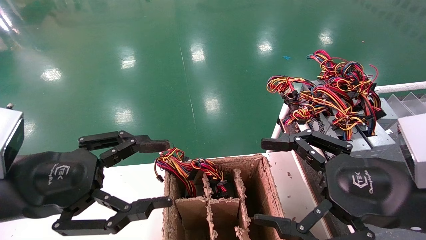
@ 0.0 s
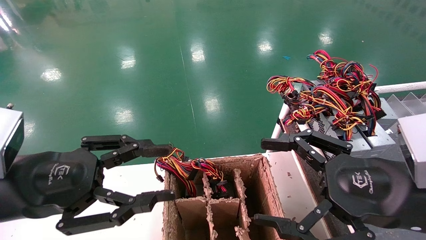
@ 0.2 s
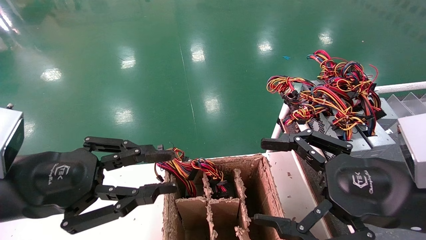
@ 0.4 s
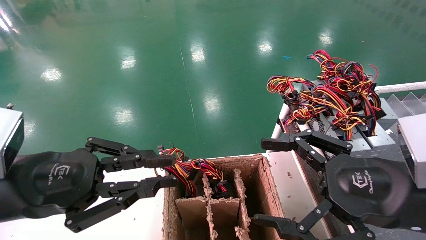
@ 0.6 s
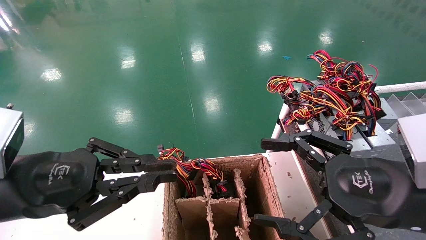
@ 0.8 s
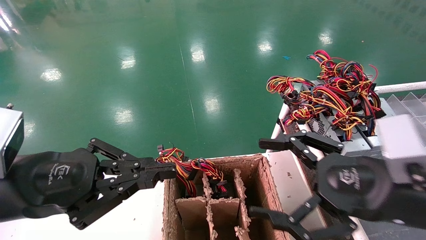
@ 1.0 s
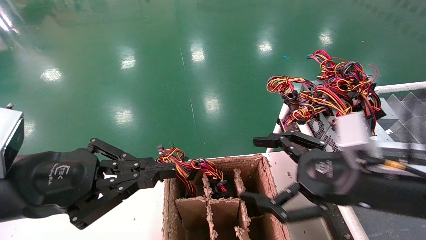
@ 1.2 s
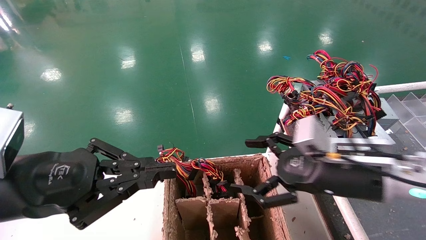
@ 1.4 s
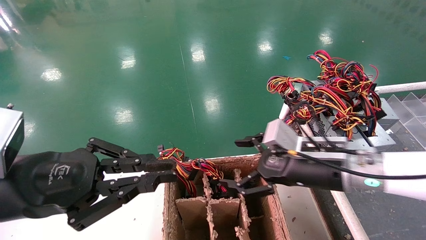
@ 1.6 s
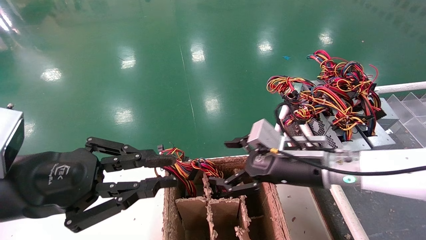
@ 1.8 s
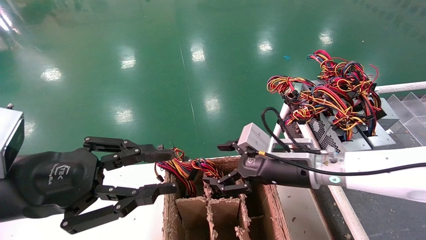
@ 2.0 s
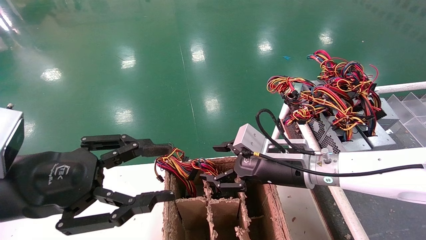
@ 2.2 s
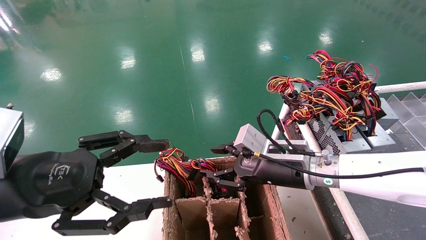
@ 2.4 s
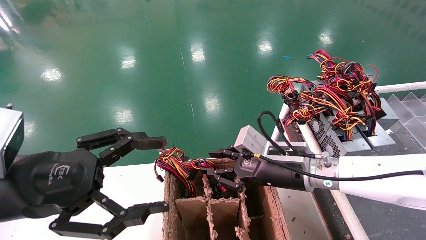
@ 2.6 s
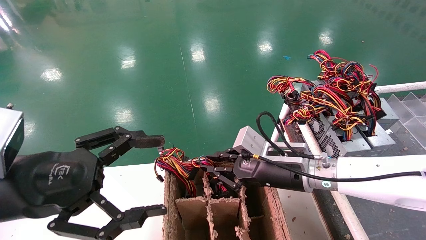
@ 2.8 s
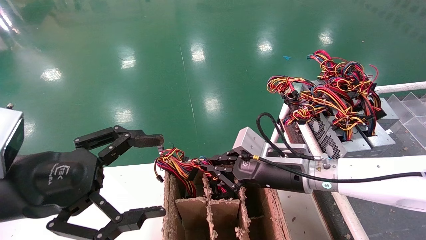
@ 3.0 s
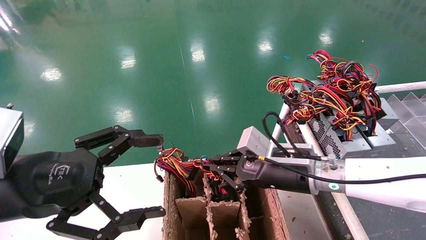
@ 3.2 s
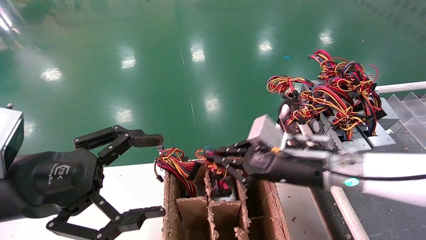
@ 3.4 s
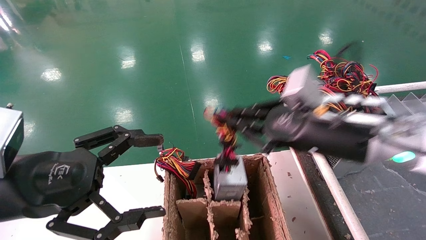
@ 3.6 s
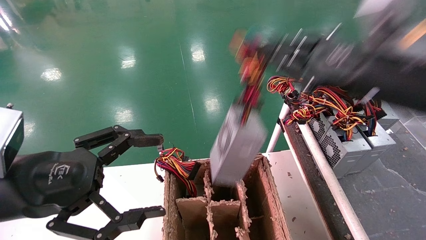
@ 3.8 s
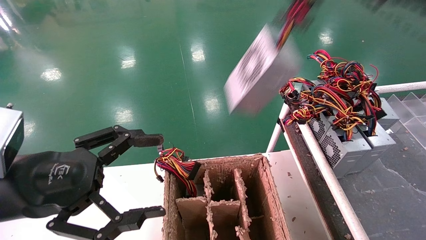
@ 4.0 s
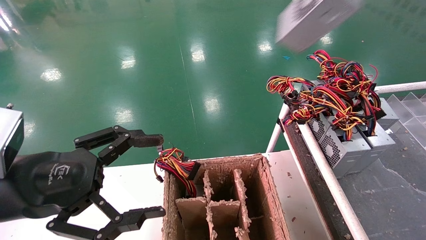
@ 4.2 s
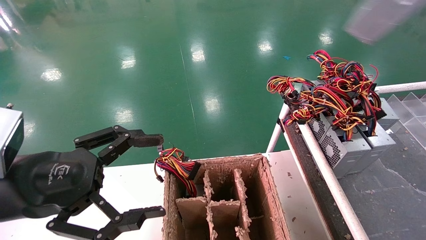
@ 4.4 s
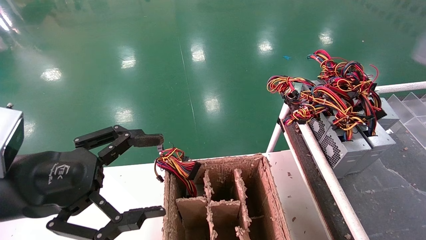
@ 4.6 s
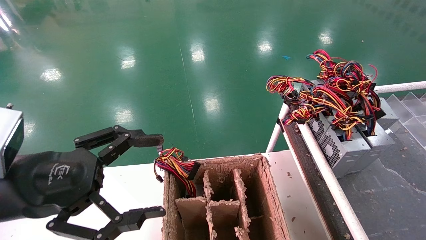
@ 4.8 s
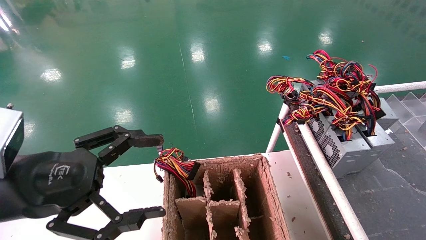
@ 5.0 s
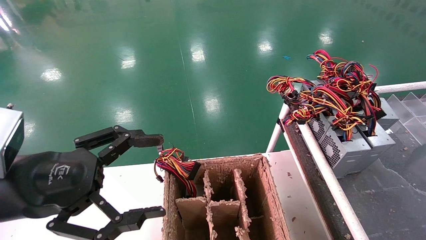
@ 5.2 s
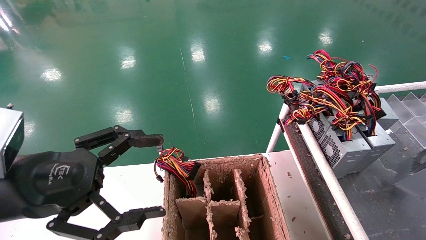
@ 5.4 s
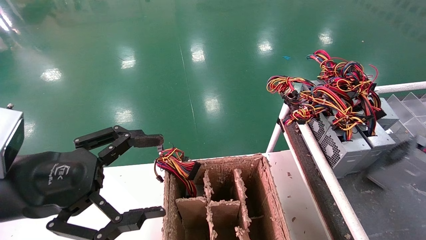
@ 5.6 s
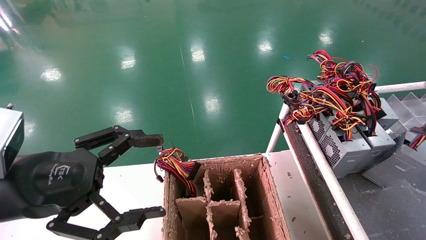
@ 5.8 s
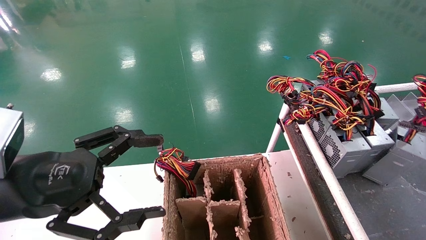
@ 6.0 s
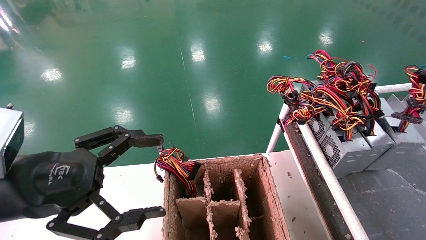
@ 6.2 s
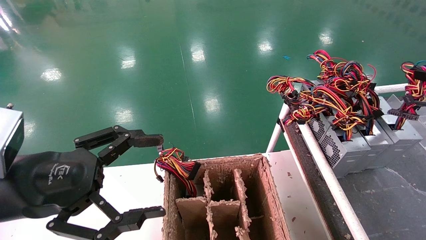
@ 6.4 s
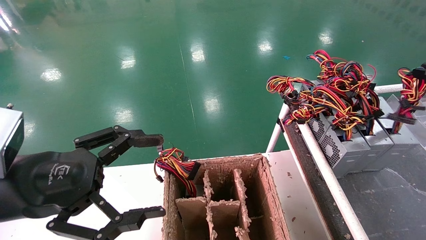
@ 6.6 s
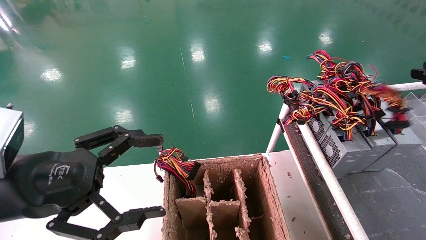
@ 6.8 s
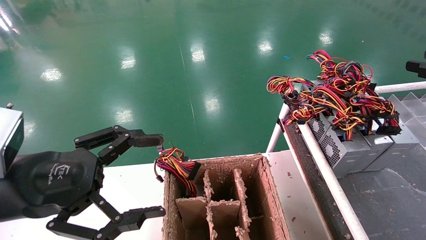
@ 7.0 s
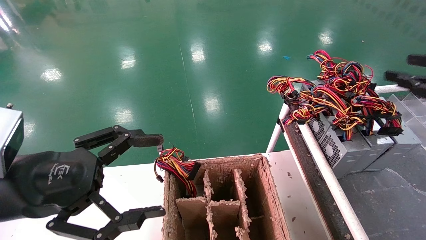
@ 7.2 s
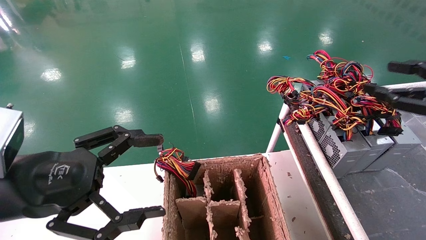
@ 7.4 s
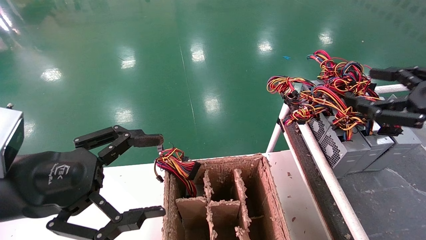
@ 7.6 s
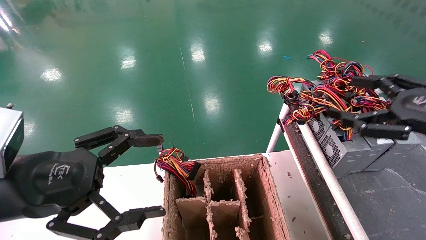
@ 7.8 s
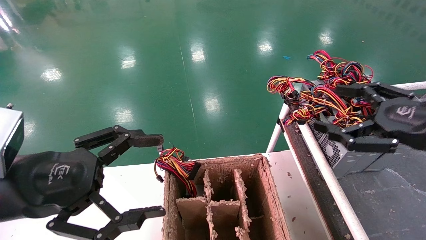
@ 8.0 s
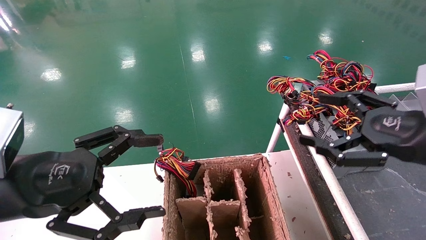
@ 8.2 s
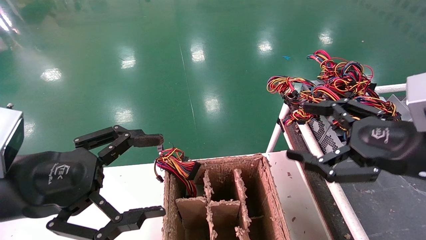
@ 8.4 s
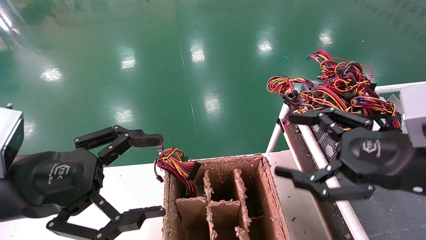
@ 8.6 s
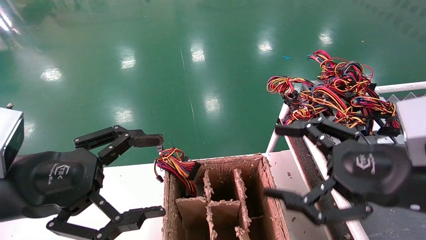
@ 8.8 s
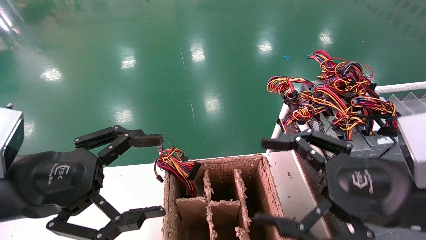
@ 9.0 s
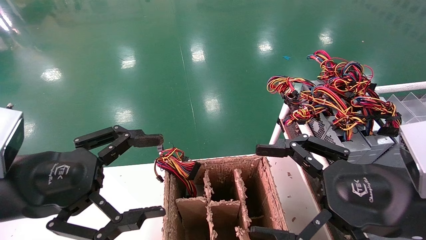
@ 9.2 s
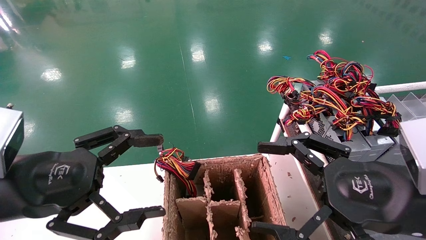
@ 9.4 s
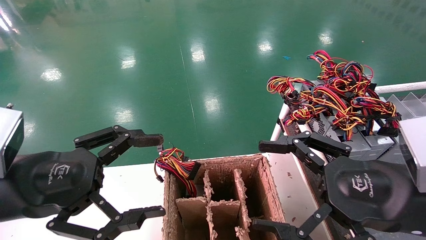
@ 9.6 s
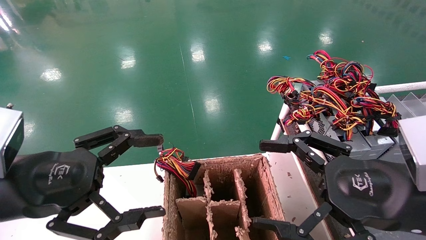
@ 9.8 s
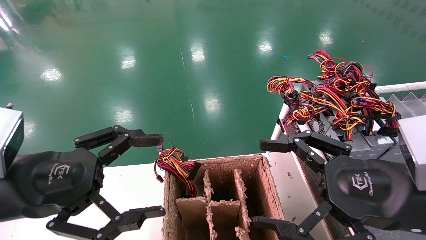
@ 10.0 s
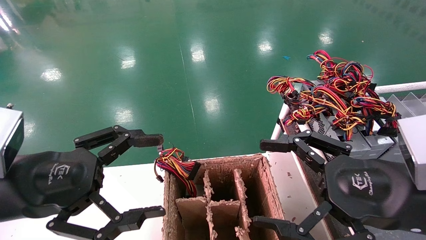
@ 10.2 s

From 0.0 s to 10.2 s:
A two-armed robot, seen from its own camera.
Step, from 1.6 s to 5.2 s: Grab and lift the power supply from the large box.
Step, from 5.4 s to 8.4 s: Place the power supply on the operating table.
From 0.0 s to 1.4 s: The right gripper is displaced forward by some 10 cm, while the left gripper closes.
From 1.4 s to 3.0 s: The right gripper shifts roughly 10 cm to the left and forward, and closes its fingers. The left gripper opens up.
From 3.0 s to 4.4 s: The right gripper travels upward, to the right and backward by approximately 40 cm.
From 4.4 s to 5.8 s: The right gripper moves downward and to the right, approximately 20 cm.
From 5.8 s to 7.2 s: The right gripper shifts approximately 5 cm to the left.
From 7.2 s to 8.8 s: The right gripper travels to the left and downward by roughly 20 cm, and opens.
From 8.8 s to 10.2 s: The grippers stay close to where they were, moving slightly.

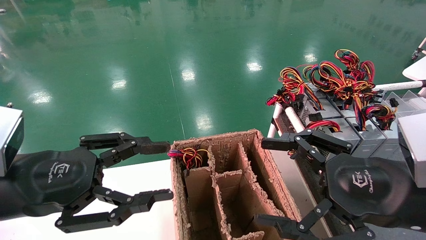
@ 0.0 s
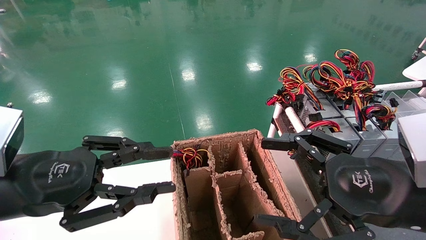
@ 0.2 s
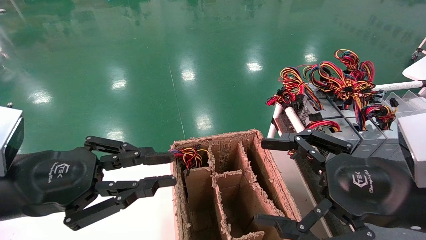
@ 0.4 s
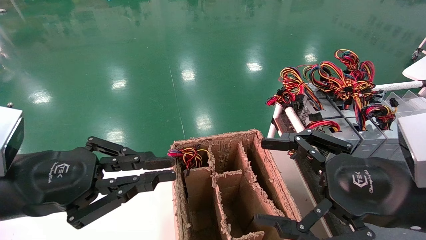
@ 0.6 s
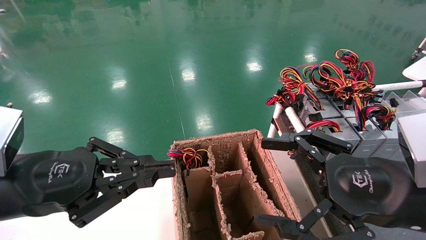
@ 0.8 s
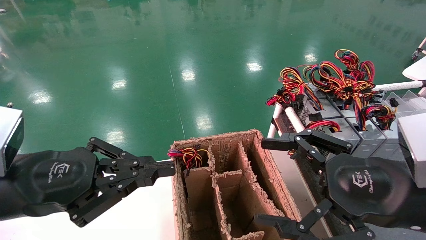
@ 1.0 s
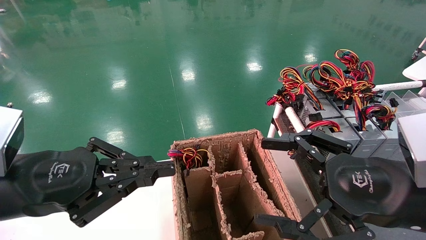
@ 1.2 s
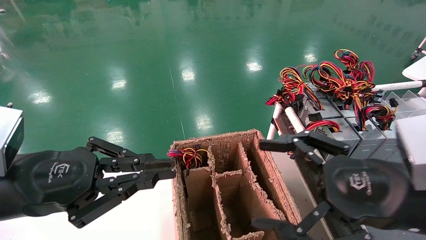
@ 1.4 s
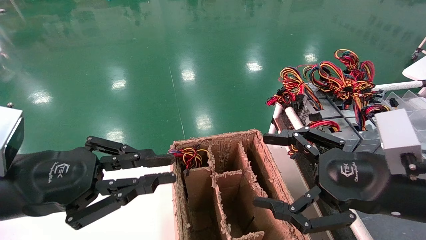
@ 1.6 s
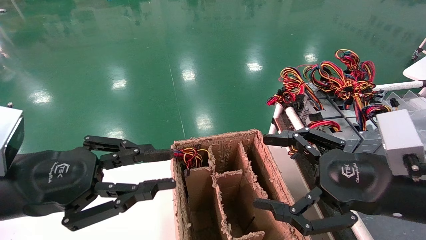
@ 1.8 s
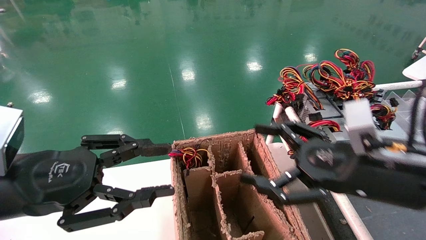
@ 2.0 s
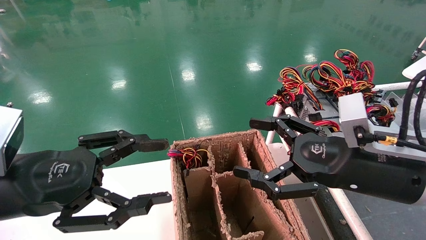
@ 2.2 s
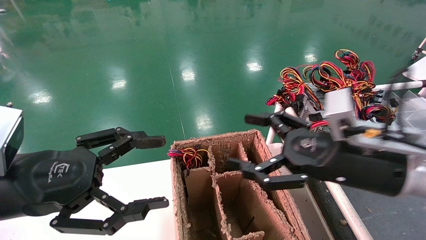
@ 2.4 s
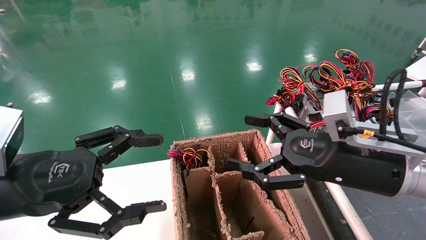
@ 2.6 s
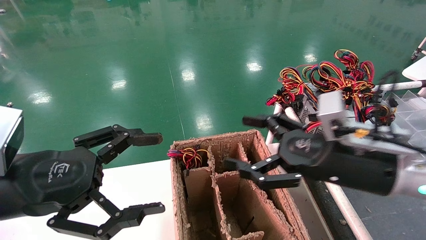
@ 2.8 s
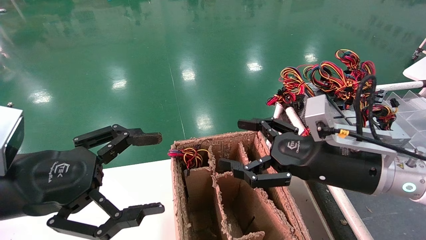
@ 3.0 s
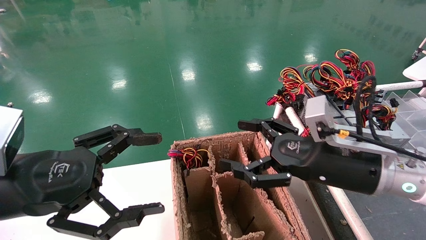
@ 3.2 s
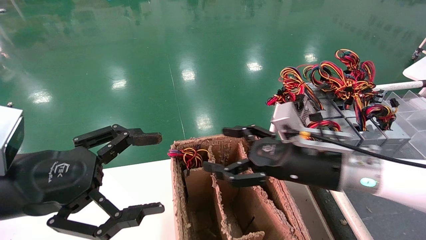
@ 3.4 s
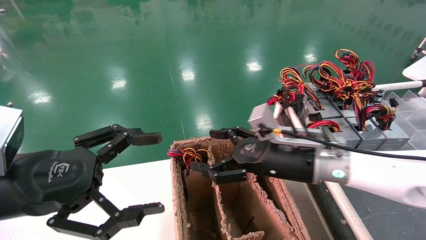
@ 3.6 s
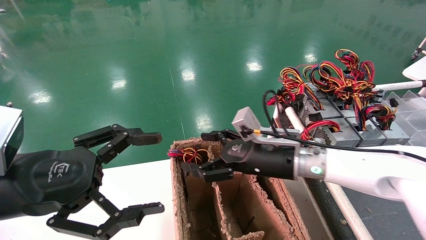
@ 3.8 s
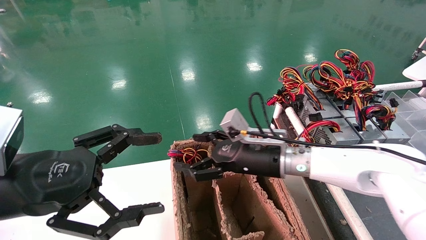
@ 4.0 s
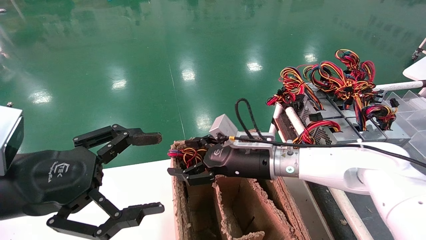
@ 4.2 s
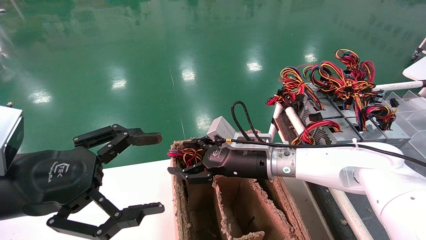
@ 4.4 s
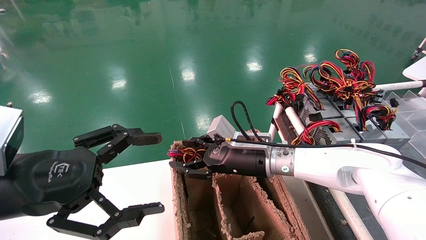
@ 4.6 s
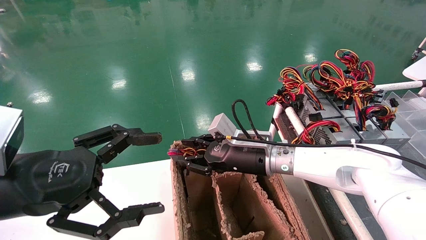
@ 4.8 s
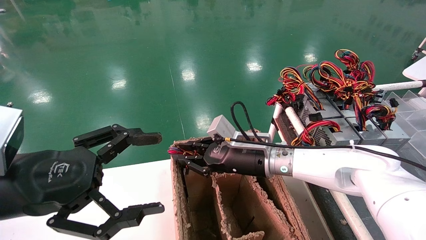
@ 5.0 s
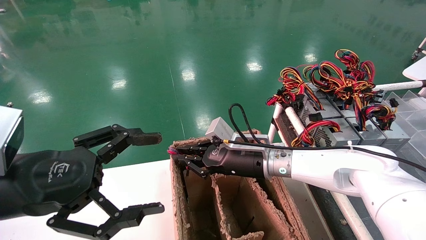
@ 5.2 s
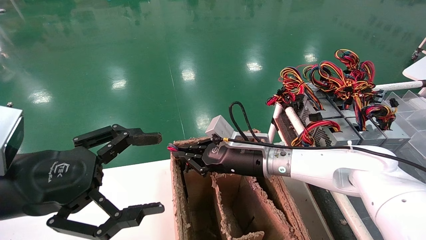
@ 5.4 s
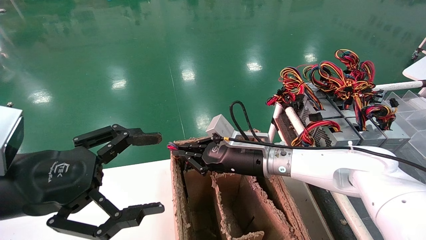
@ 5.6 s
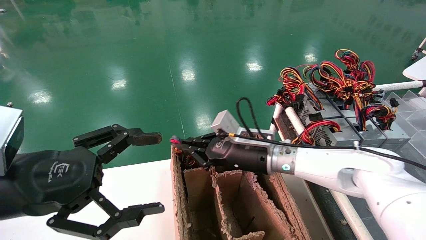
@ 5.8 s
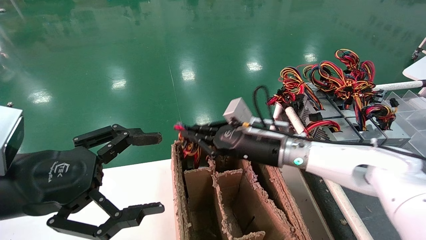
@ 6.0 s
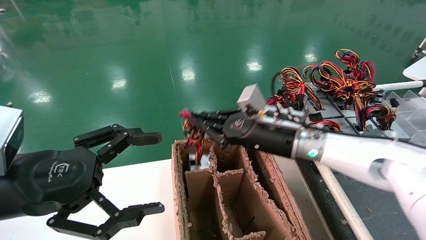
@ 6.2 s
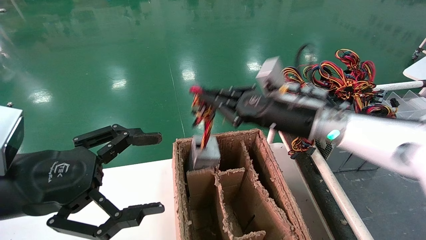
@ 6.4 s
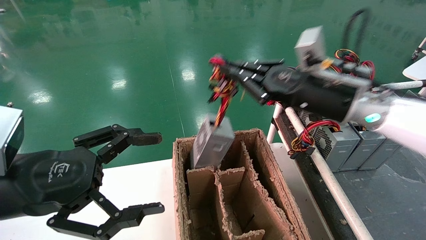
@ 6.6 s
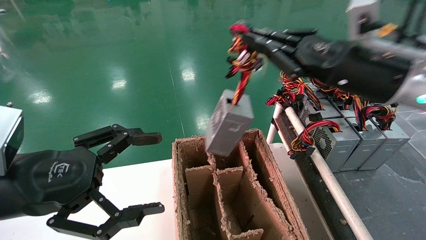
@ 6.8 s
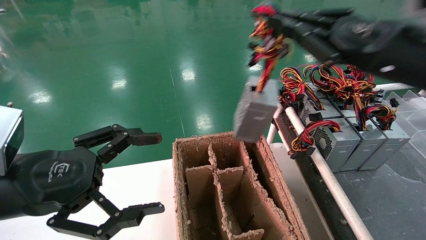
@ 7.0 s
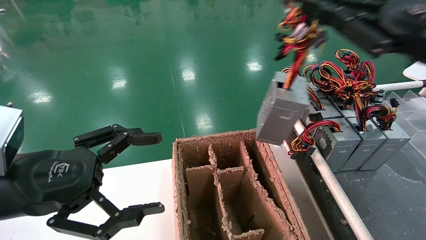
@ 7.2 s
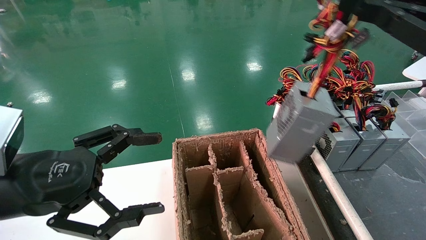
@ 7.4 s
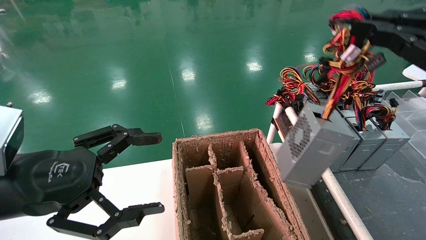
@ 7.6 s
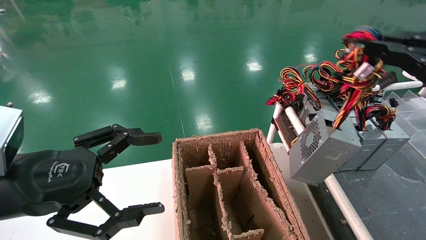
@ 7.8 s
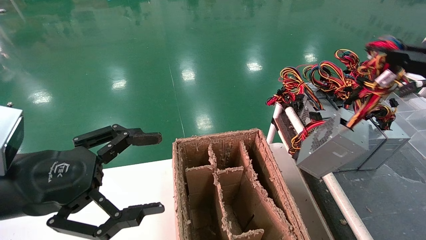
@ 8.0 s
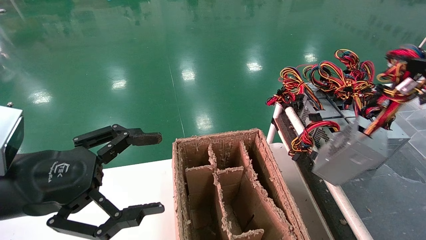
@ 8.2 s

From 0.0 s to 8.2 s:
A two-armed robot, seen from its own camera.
Step, from 1.0 s to 6.0 s: Grab and lift the power supply from the large box.
From 0.0 s to 1.6 s: The left gripper closes its fingers.
From 1.6 s to 3.2 s: The left gripper opens up; the right gripper shifts approximately 10 cm forward and to the left.
From 3.2 s to 5.0 s: The right gripper travels to the left and forward by about 15 cm, and closes up.
From 5.0 s to 6.6 s: The right gripper travels upward and to the right by about 20 cm.
From 6.6 s to 8.2 s: The right gripper is displaced to the right and backward by roughly 30 cm.
